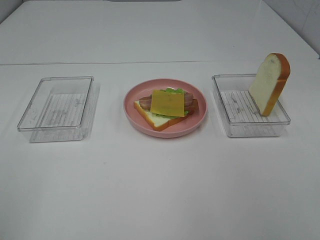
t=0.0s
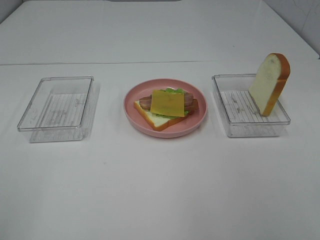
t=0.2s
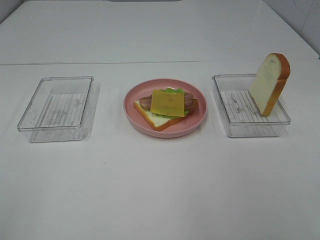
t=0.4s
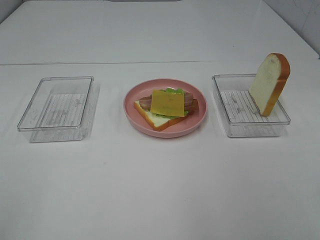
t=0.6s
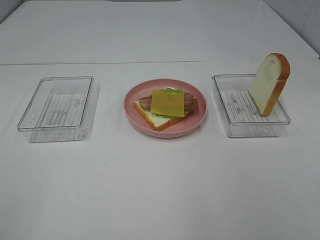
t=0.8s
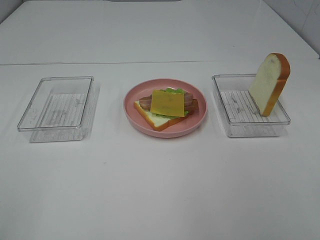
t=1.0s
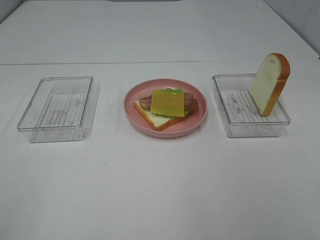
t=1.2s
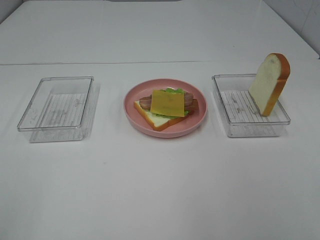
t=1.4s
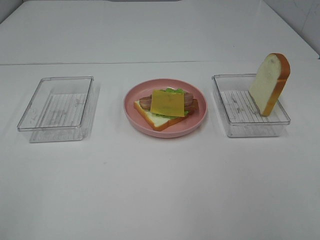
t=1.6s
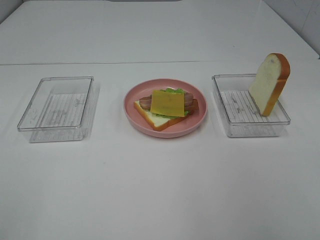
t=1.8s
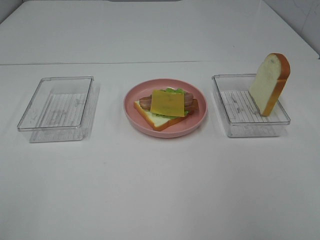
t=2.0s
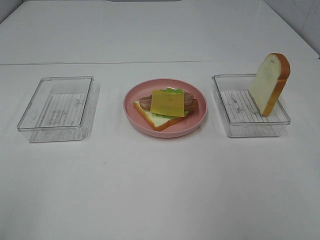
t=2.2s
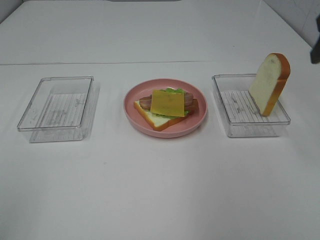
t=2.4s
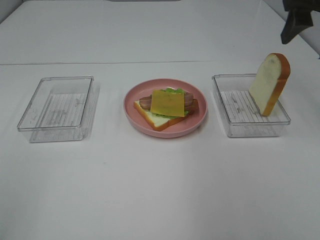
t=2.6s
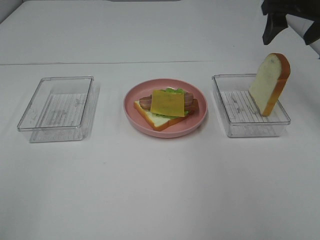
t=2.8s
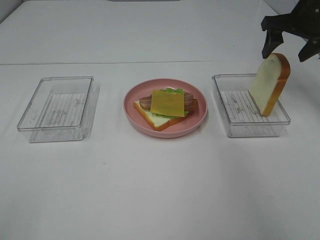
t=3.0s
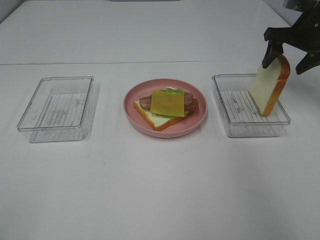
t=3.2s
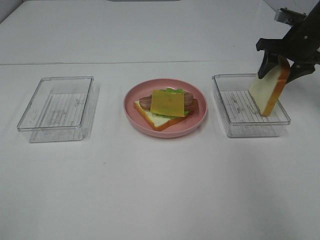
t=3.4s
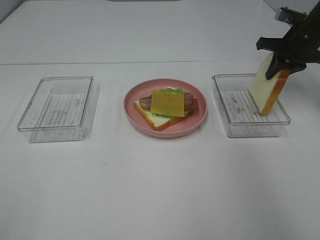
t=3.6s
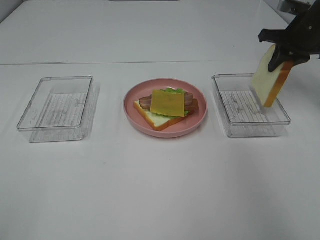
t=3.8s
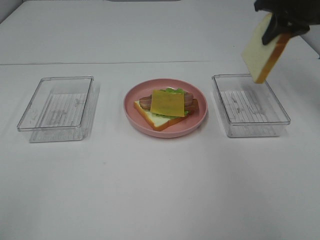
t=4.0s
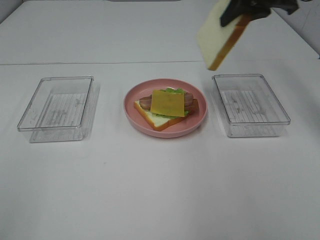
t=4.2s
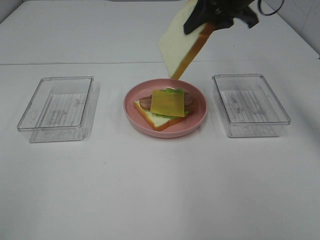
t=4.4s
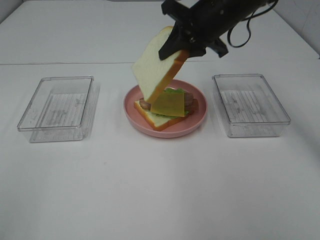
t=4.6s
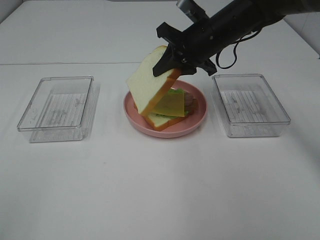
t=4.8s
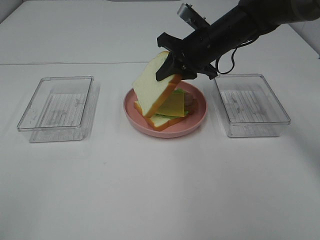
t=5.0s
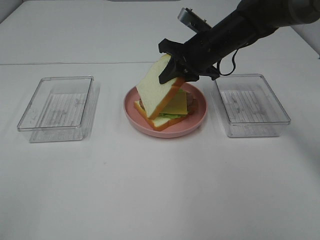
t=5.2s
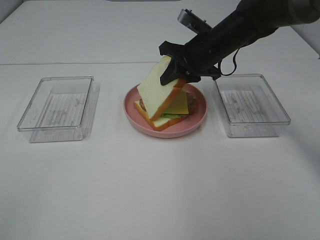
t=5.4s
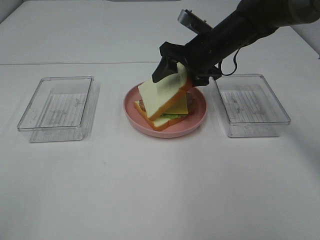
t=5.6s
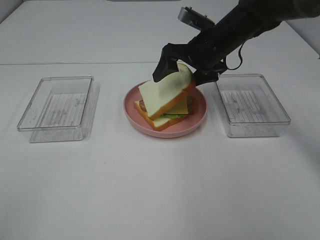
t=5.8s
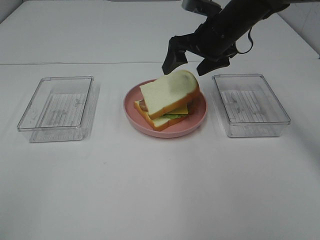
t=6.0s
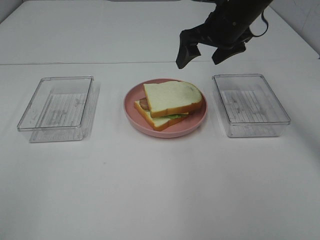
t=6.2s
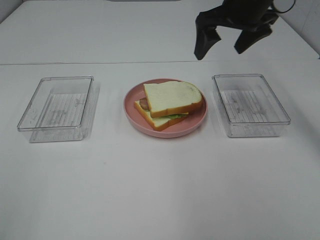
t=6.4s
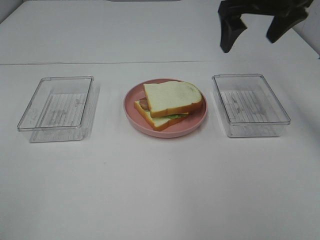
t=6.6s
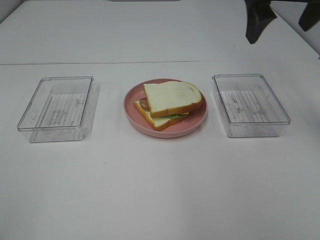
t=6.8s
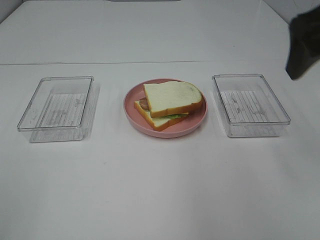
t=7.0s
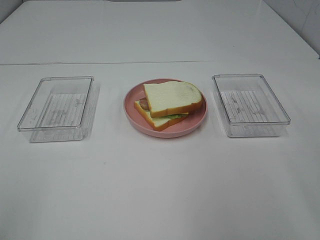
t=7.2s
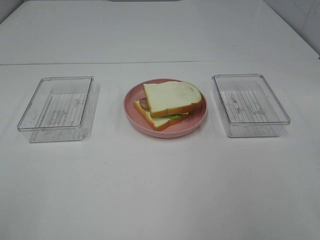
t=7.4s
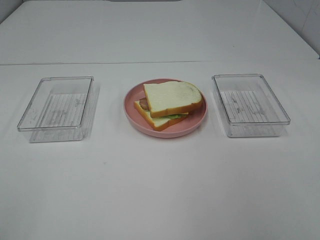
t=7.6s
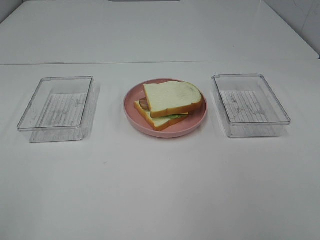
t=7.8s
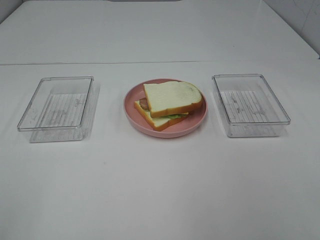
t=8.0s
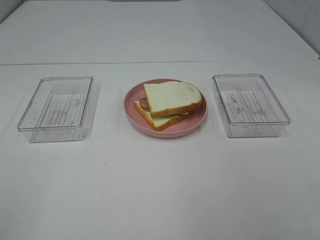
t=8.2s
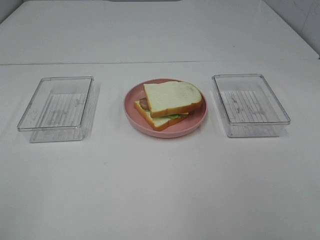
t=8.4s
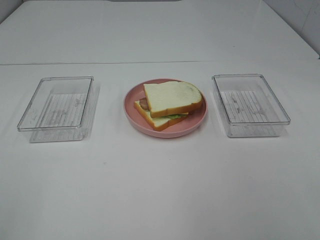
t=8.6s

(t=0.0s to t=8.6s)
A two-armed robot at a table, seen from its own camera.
Task of the whole recording: Make sandwiches.
Step, t=0.0s - t=3.8s: Right hand:grab the bread slice.
Step, t=4.0s - t=6.2s: Right hand:place the bread slice on the cheese slice.
t=1.4s - t=2.8s: The right gripper travels forward by approximately 40 cm.
t=2.8s - t=4.4s: The right gripper goes about 10 cm to the left, and closes.
t=4.4s - t=5.8s: The right gripper goes approximately 10 cm downward, and opens.
t=5.8s - t=7.2s: The right gripper moves backward, upward and to the right, roughly 30 cm.
